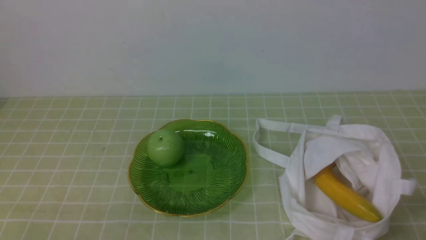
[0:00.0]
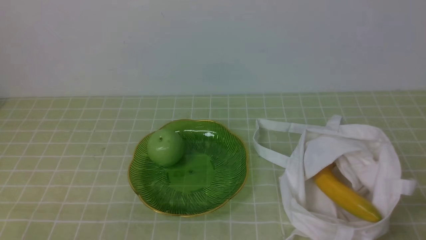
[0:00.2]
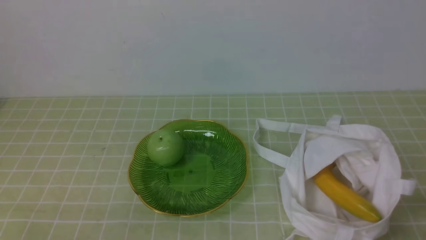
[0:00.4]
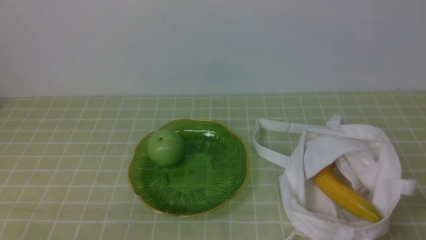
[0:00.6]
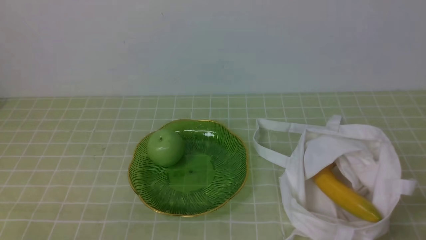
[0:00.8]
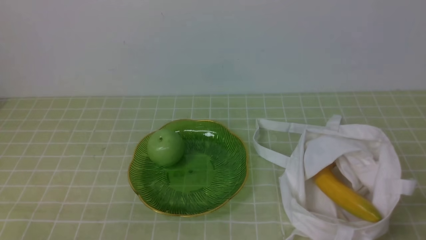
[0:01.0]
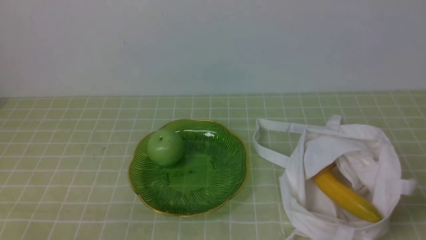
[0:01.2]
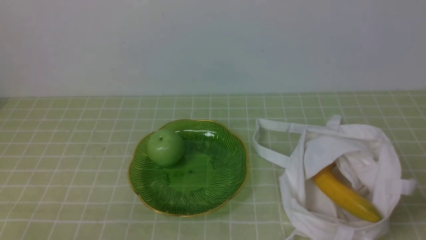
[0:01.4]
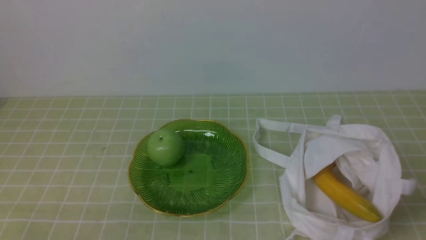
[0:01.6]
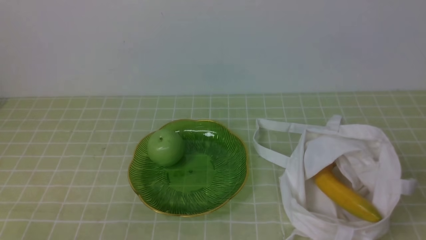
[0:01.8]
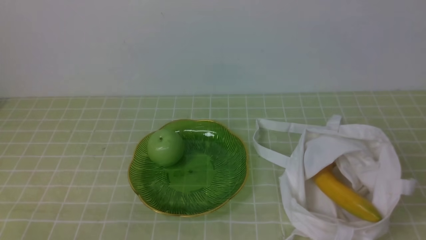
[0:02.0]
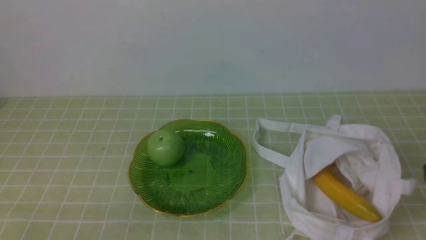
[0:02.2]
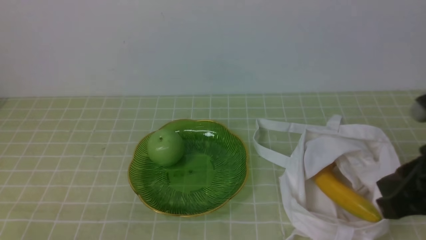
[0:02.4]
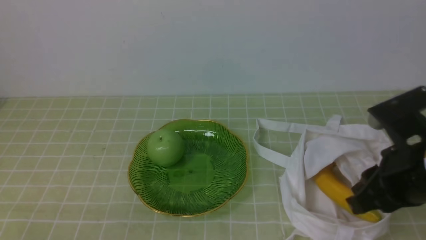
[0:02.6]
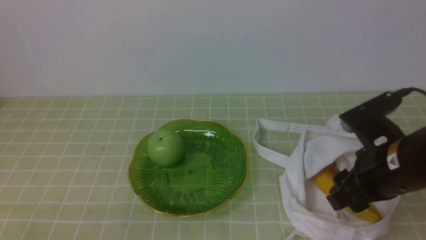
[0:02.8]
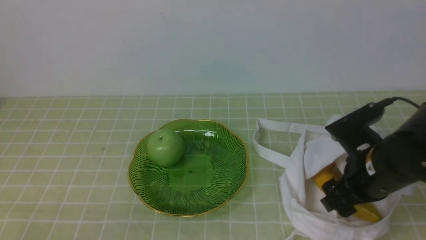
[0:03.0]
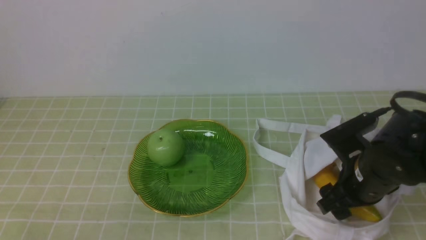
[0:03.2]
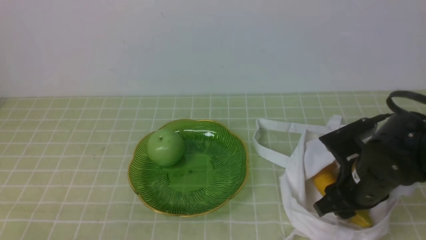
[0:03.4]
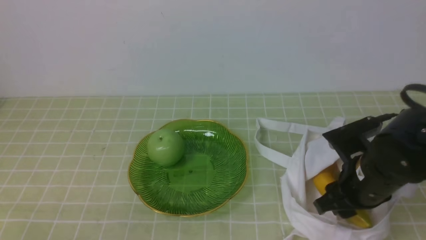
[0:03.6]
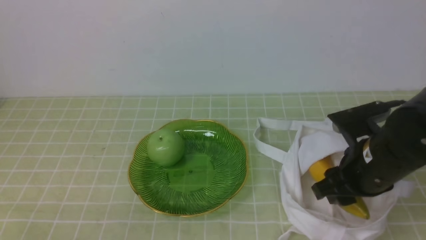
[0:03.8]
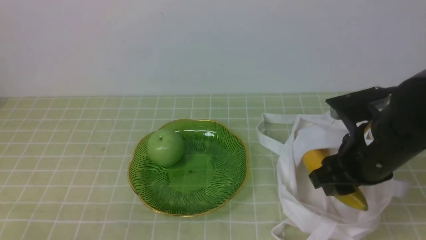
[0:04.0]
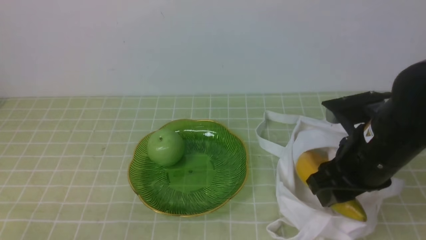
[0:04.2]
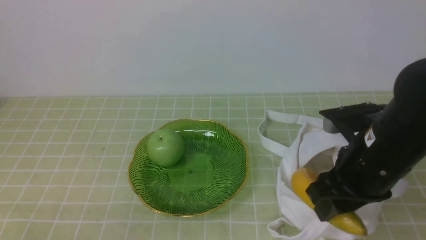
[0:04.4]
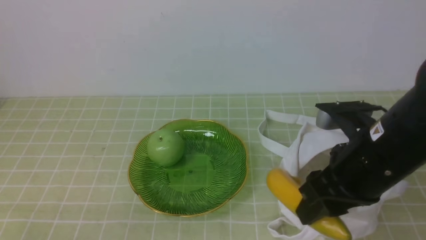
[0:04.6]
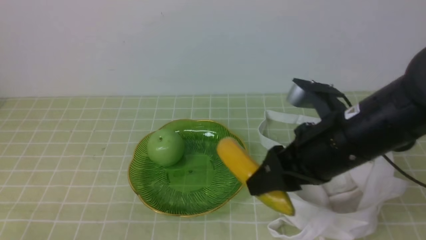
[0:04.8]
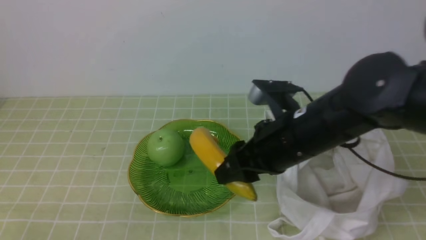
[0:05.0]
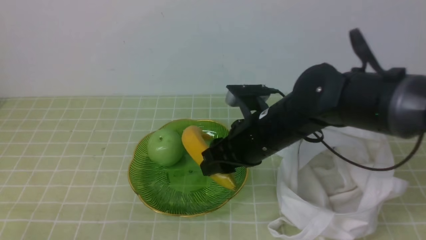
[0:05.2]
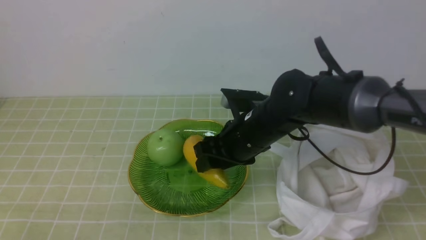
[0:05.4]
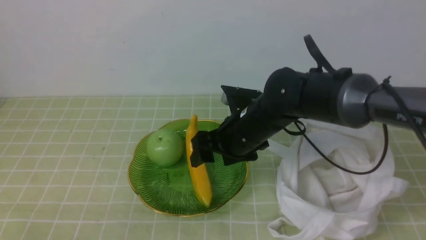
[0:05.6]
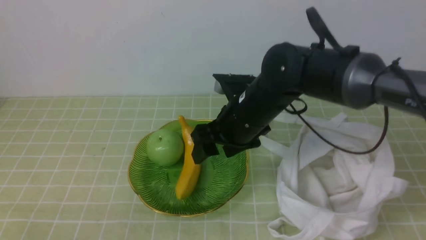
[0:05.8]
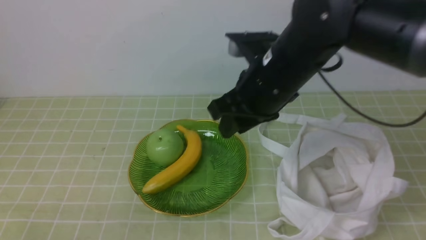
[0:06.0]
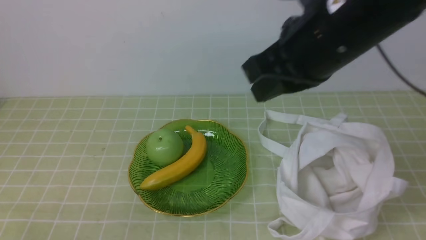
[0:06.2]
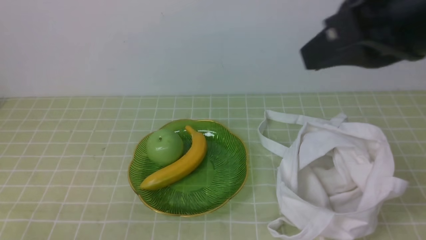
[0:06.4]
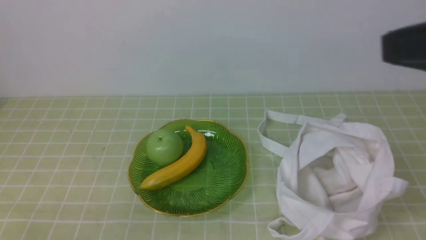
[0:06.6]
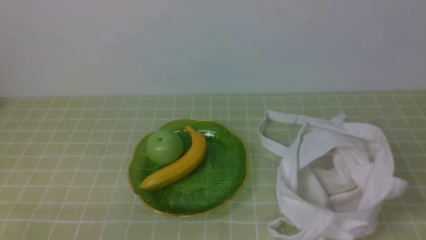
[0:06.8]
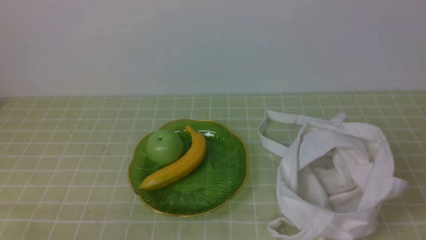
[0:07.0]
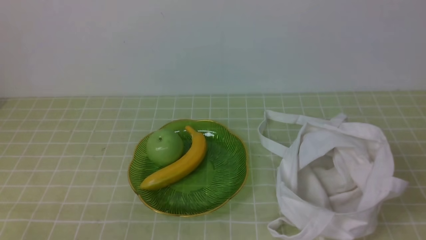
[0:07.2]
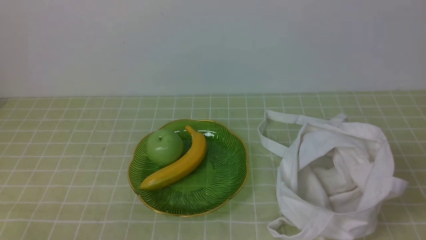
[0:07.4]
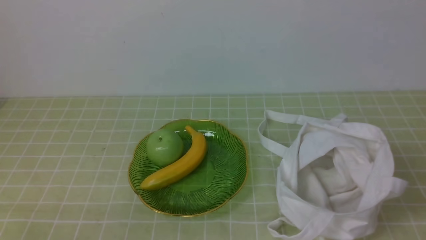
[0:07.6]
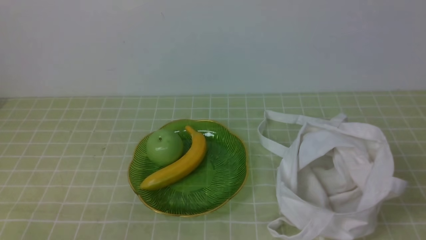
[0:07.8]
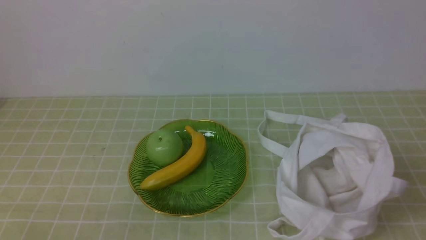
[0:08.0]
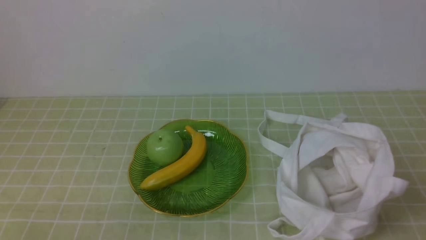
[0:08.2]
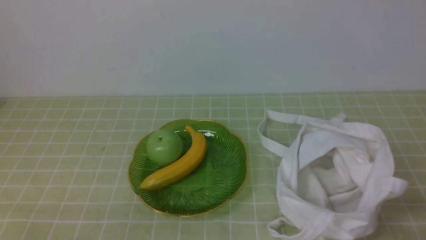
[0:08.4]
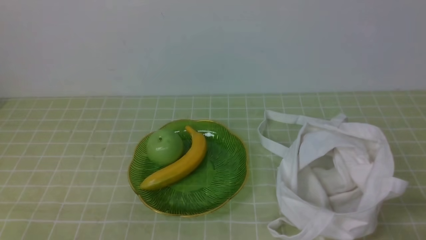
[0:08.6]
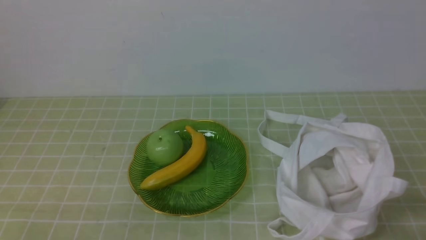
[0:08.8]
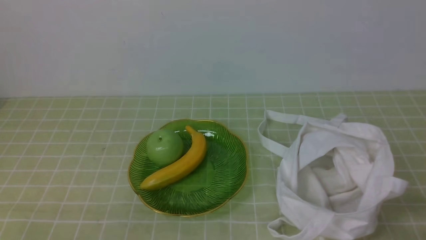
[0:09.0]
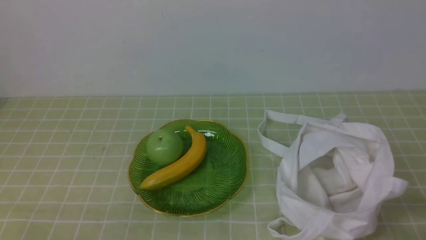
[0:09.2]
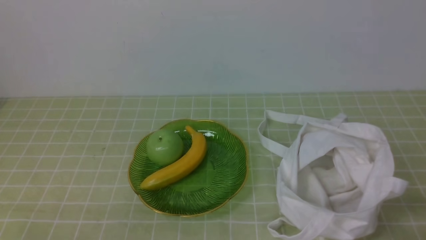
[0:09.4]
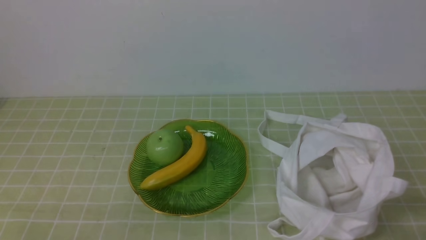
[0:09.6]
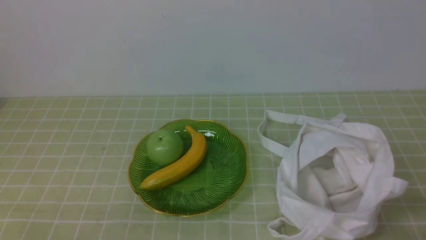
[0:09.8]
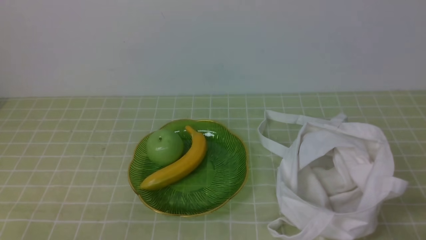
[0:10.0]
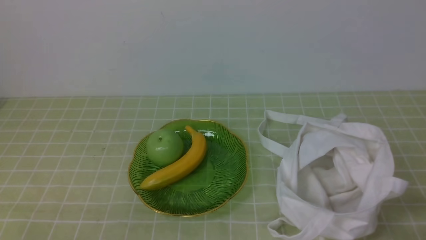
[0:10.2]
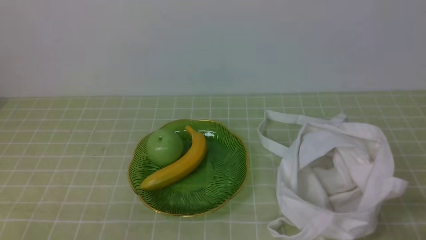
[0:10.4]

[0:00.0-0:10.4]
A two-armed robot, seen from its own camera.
Step, 0:00.0 to 0:03.6: use the right arm to grab a banana from the bag.
Step, 0:03.8 to 0:05.6: use the right arm to put the banana into the empty plate on the right.
0:01.4 to 0:03.0: The right gripper is displaced forward and to the left by roughly 20 cm, and opens its fingers.
0:03.0 to 0:04.4: The right gripper moves upward, roughly 5 cm, and closes its fingers.
0:04.4 to 0:06.0: The right gripper shifts about 15 cm to the left, forward and upward, and opens and closes again.
0:06.0 to 0:07.4: The right gripper goes roughly 35 cm backward and to the right, and closes up.
0:09.0 to 0:10.4: Both grippers stay about where they are.

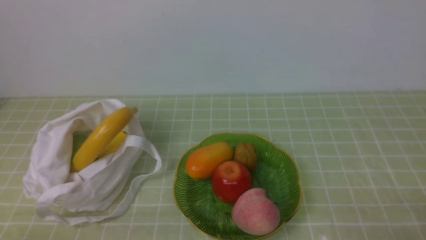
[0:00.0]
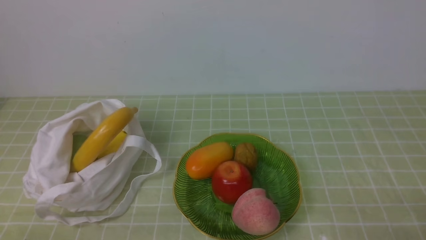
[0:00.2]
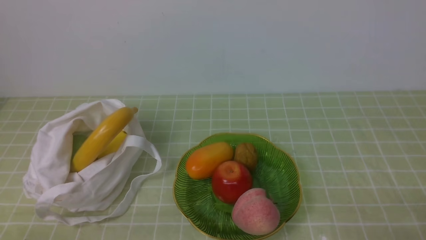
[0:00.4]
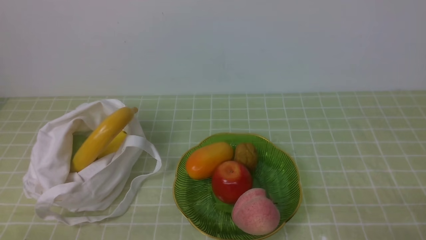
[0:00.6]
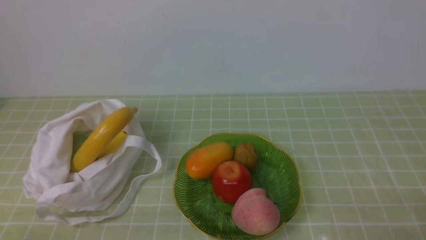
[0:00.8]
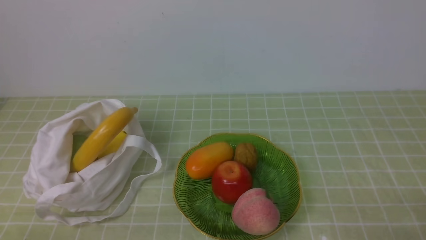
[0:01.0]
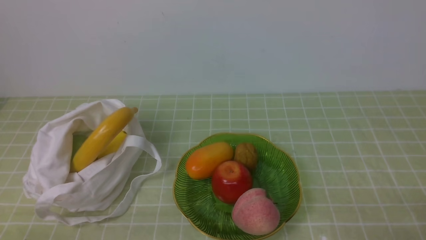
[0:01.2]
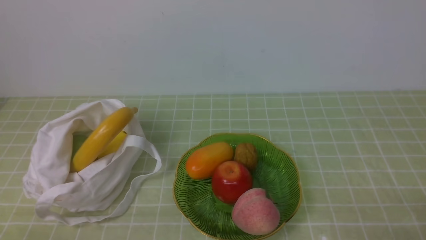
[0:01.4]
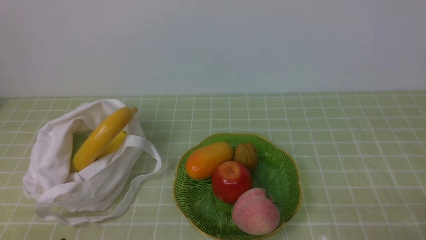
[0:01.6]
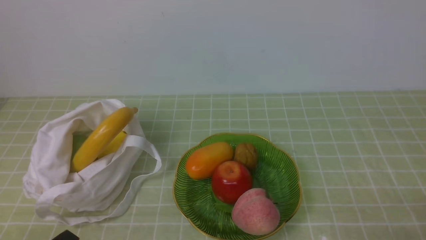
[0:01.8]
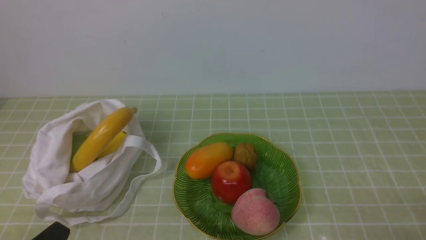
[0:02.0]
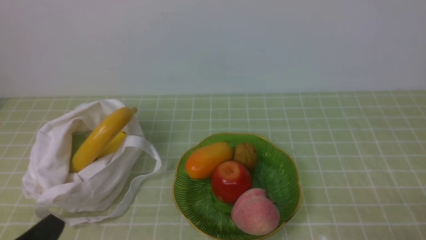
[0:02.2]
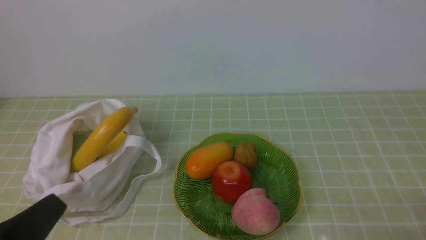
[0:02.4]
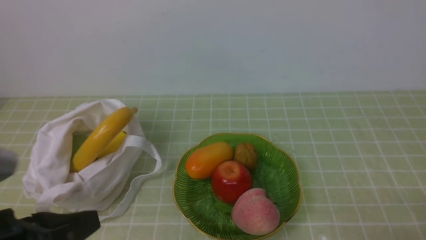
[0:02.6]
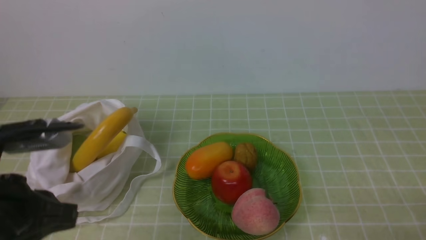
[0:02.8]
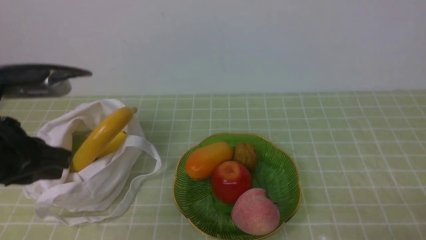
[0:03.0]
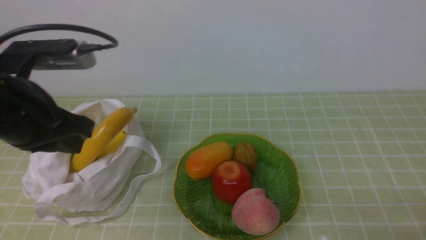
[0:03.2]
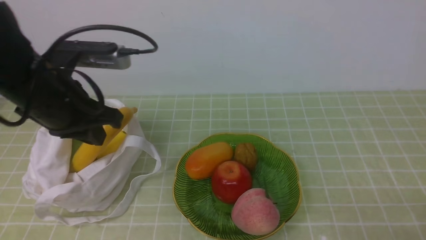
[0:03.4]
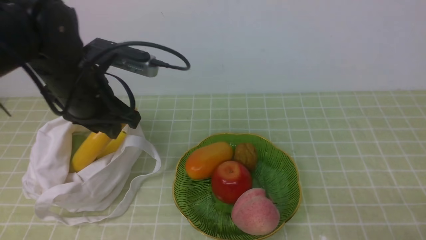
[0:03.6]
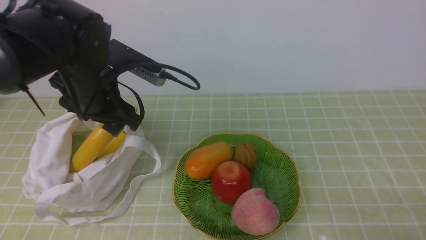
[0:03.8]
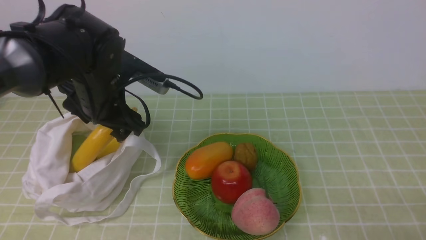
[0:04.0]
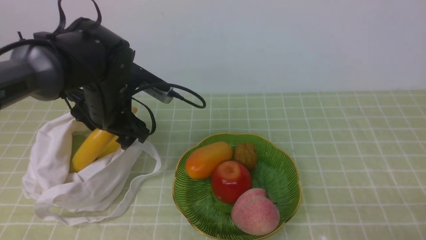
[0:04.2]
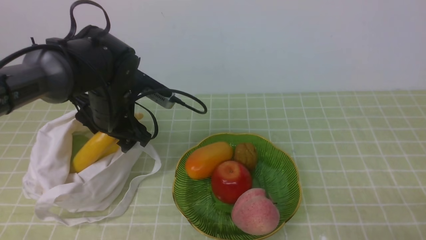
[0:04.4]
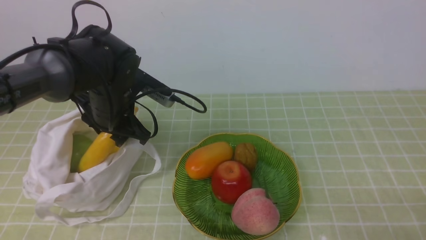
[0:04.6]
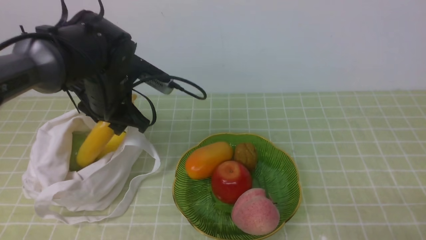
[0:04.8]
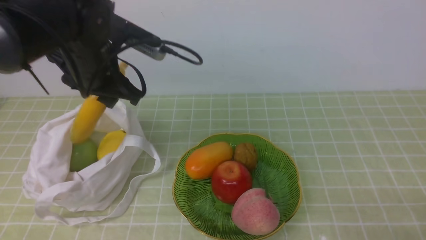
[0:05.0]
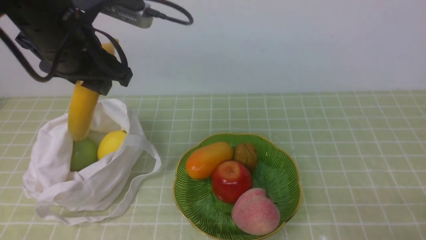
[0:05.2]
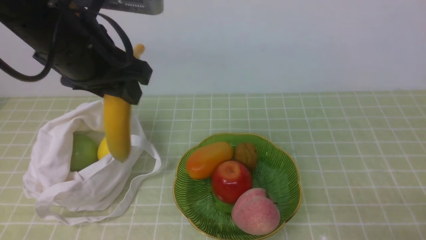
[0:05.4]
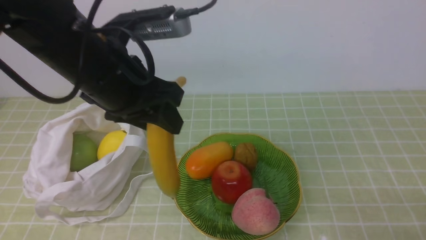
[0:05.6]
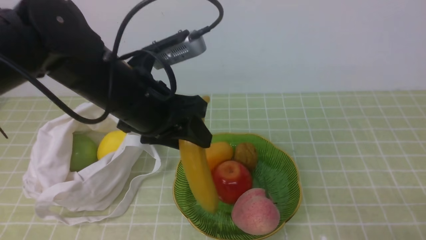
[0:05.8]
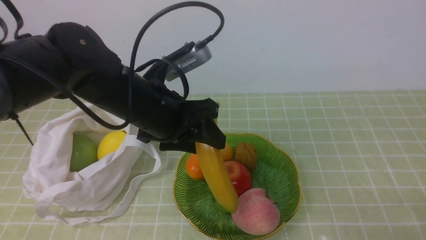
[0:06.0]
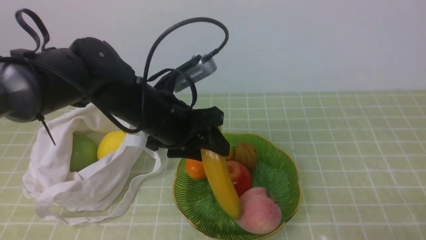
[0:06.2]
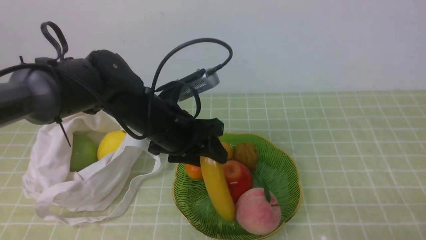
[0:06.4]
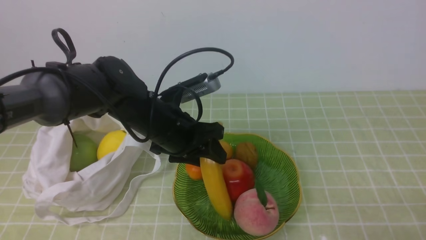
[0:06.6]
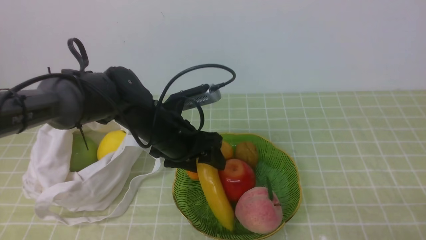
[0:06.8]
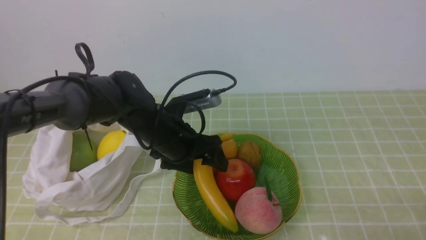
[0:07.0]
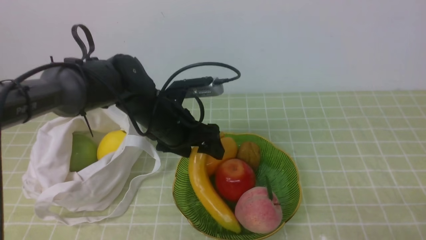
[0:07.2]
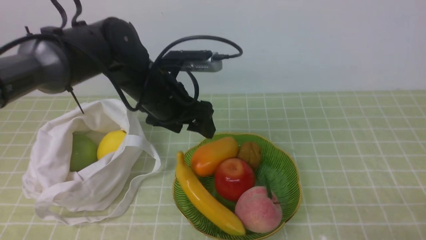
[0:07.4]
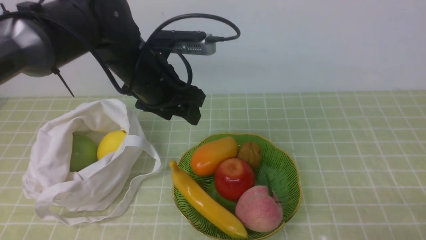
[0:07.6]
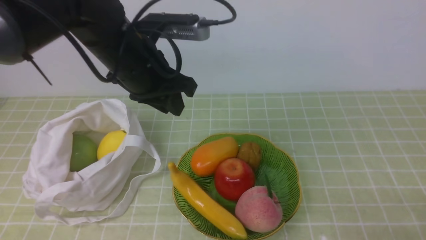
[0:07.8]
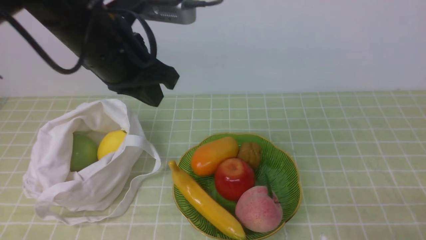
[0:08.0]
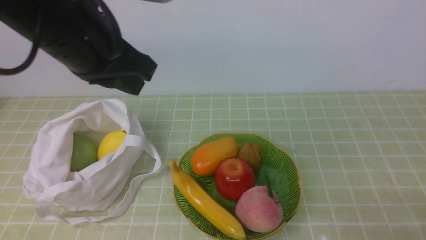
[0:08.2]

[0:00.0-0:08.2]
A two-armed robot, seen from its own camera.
Step, 0:00.0 to 0:04.8: use the left arm to grab a banana from the bag.
Step, 0:05.0 to 0:07.2: use the left arm to put the banana into the empty plate on the right.
0:01.6 to 0:03.2: The left gripper heads forward and upward, covering some 25 cm.
0:03.2 to 0:05.0: The left gripper goes approximately 10 cm forward and to the right, and opens up.
0:05.0 to 0:06.6: The left gripper is displaced downward and to the right by some 15 cm.
0:06.6 to 0:08.2: The left gripper goes roughly 20 cm upward, and closes up.
